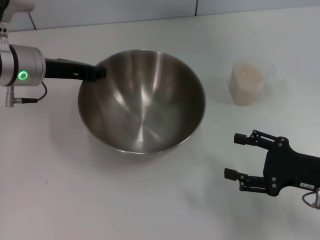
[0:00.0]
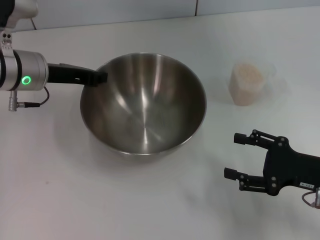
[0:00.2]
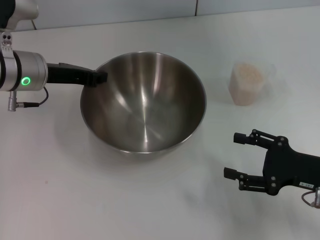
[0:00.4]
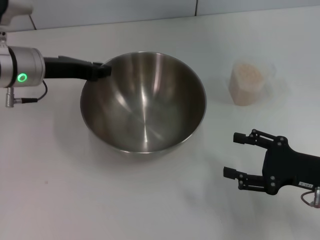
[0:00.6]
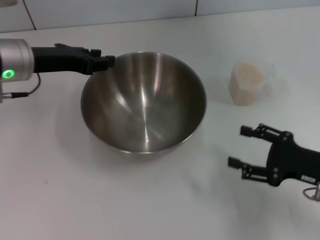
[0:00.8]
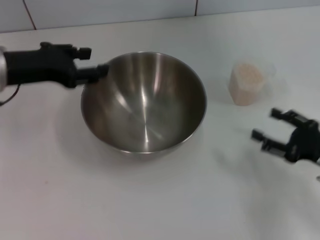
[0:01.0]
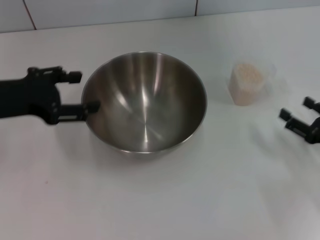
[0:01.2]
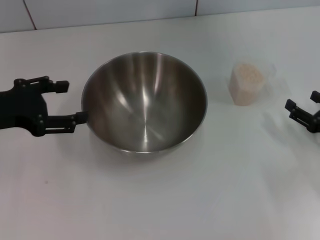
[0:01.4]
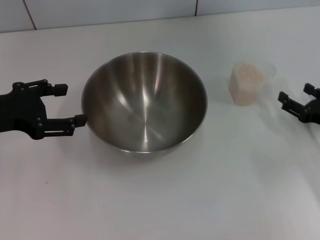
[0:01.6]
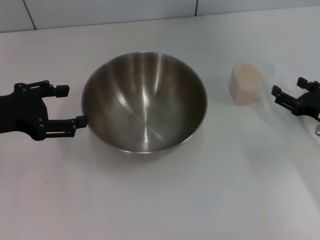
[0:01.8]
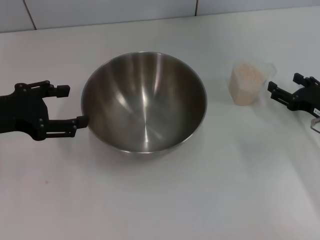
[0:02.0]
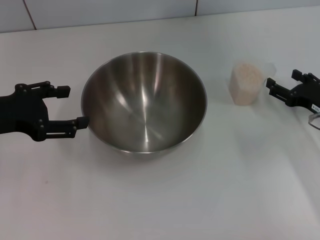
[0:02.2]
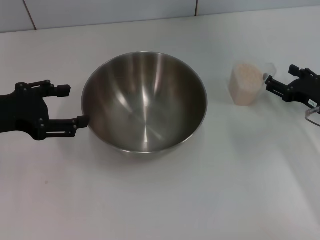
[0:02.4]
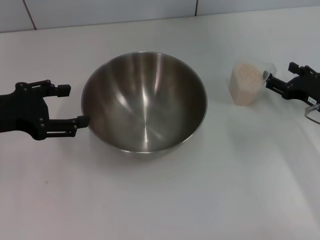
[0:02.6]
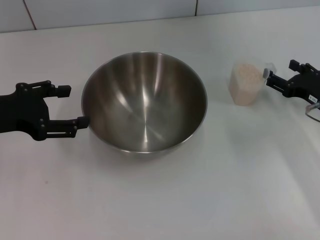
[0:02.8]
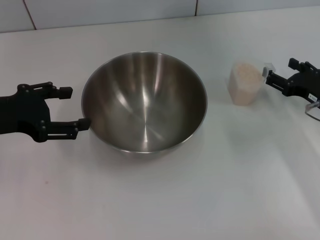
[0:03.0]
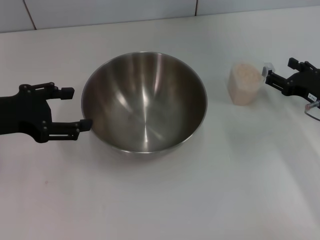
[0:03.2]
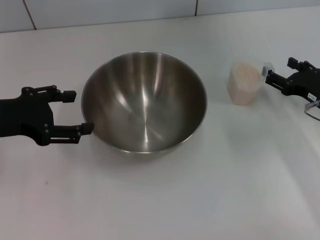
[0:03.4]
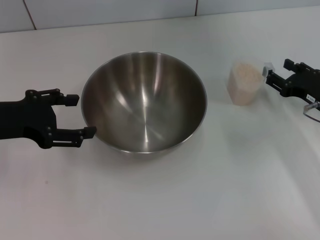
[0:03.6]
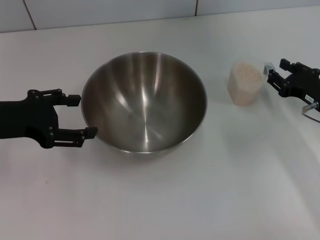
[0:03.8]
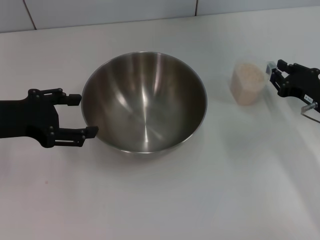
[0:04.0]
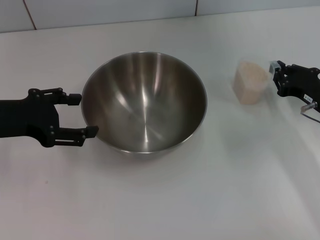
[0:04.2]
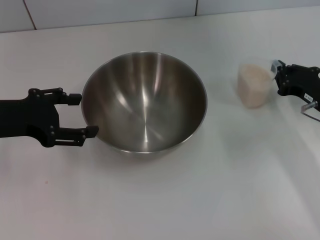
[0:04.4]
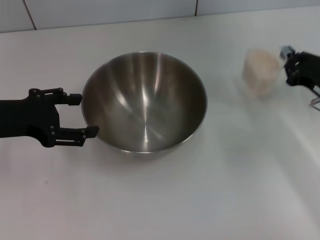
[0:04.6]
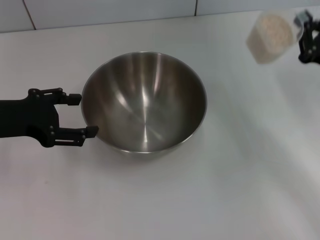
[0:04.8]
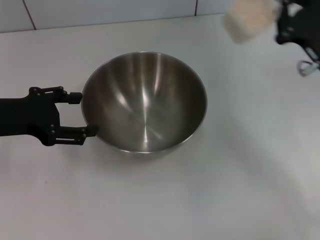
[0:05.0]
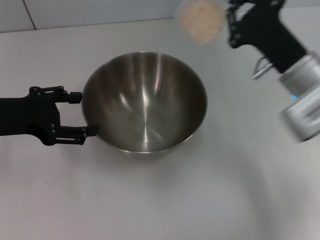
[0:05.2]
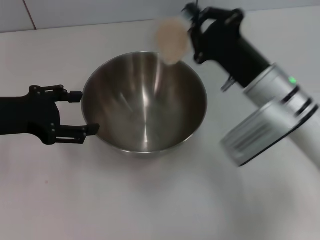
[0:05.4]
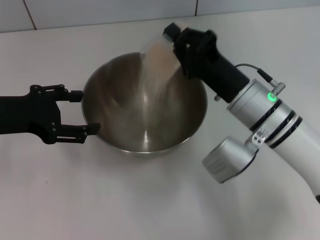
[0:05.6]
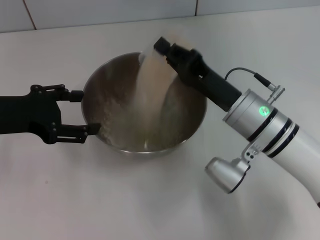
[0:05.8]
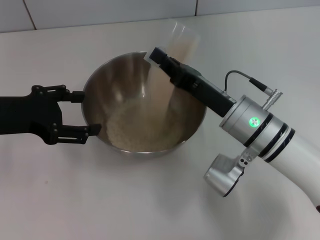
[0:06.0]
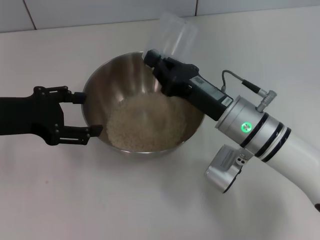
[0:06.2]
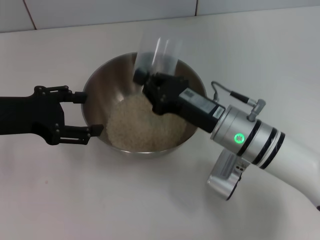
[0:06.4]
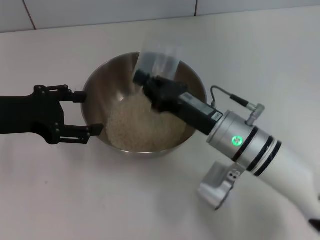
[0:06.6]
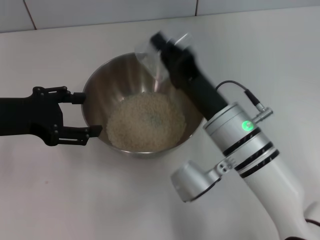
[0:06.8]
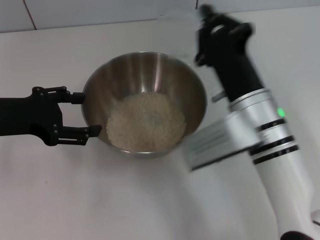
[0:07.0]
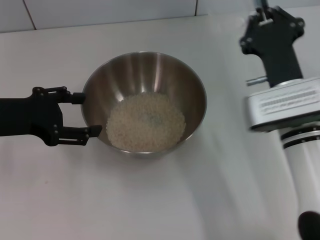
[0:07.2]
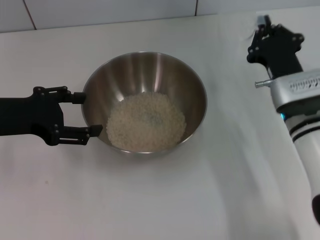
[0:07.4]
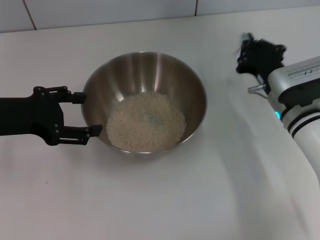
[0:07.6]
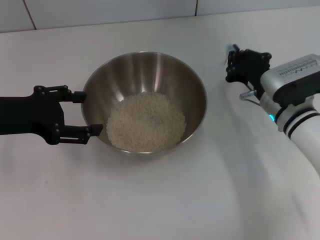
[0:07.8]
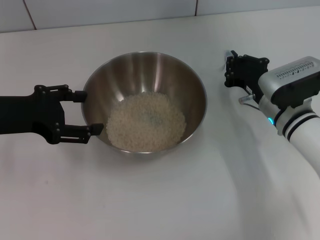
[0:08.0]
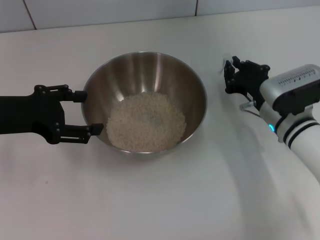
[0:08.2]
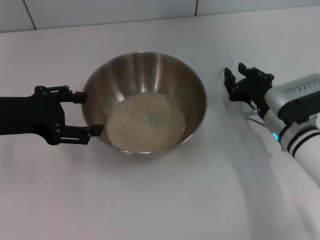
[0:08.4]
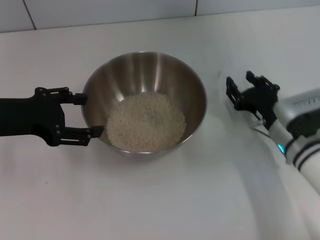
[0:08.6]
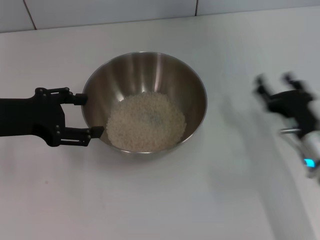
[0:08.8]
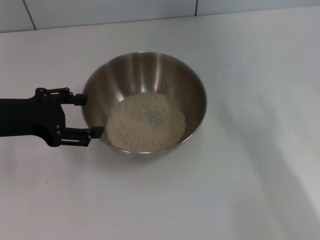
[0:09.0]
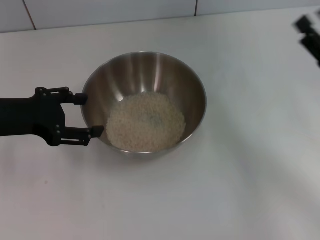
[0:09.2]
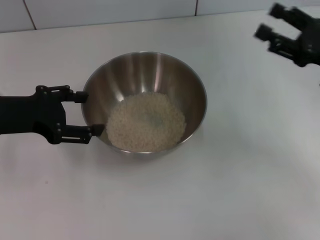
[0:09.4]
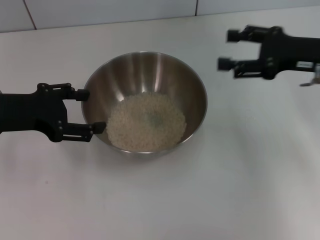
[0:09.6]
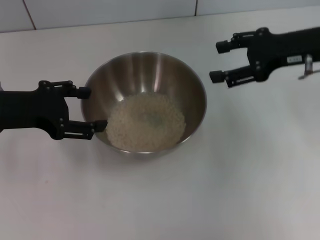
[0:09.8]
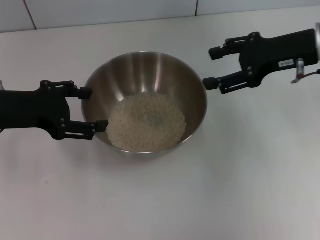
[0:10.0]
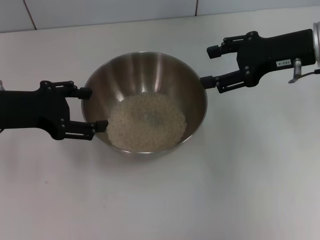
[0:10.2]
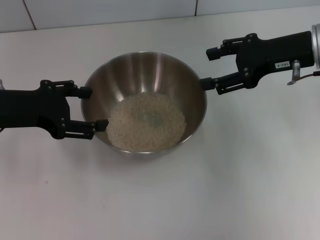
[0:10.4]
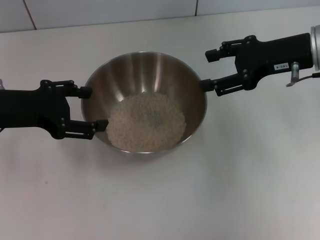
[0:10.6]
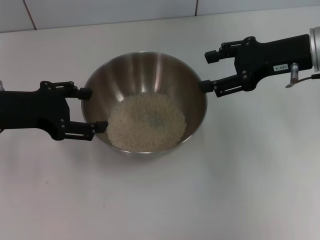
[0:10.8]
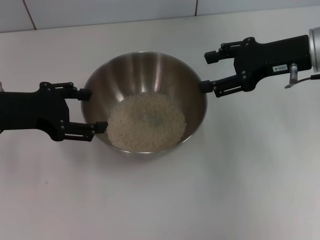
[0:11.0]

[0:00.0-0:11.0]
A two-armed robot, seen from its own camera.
Task of the whole recording: Place the bowl in the middle of the table with one hand and pour the rice from the grain cup into it with the other hand.
Step, 0:00.0 to 0:01.0: Place the bowl in the center of view with the left gripper.
Step, 0:01.2 to 0:04.8: Pick up the cup with rice in it with the right gripper.
Step, 0:05.0 to 0:07.2: Pour the rice from the cup into the bowl with the right gripper.
Step, 0:07.4 to 0:08.6: Place the cup on the table with the right gripper.
0:00.0 to 0:01.6: The right gripper goes approximately 10 cm forward and to the right, while the left gripper goes about 15 cm backward and to the left, and opens up.
0:01.6 to 0:03.2: The right gripper changes place by roughly 5 cm.
0:03.2 to 0:04.8: The right gripper changes place by approximately 5 cm, and closes its fingers.
0:04.8 to 0:06.2: The right gripper goes approximately 20 cm to the left.
0:06.2 to 0:07.8: The right gripper goes roughly 10 cm to the right.
0:07.8 to 0:09.4: The right gripper shifts roughly 15 cm to the right and upward, reaches about 10 cm backward, then returns, and opens its fingers.
0:09.4 to 0:11.0: The right gripper moves to the left, upward and forward, about 10 cm.
